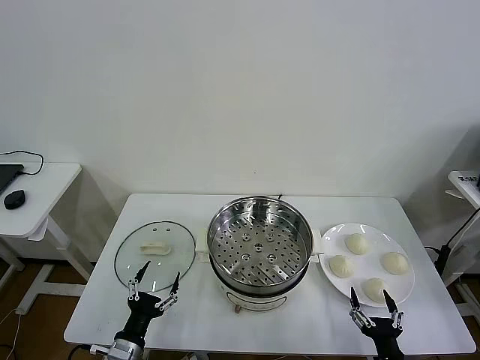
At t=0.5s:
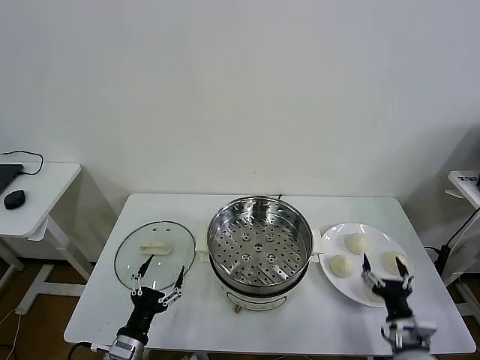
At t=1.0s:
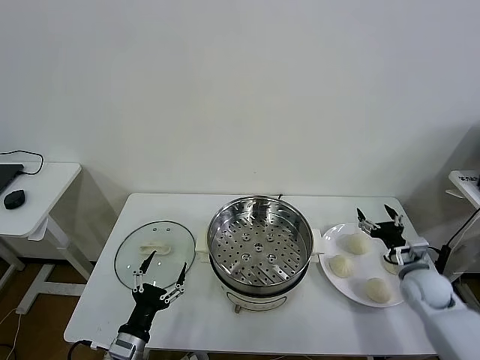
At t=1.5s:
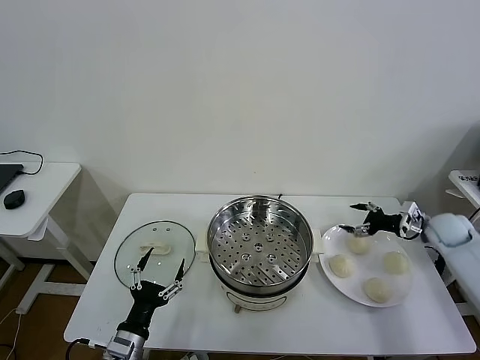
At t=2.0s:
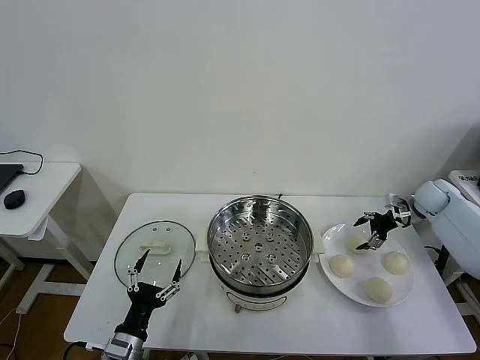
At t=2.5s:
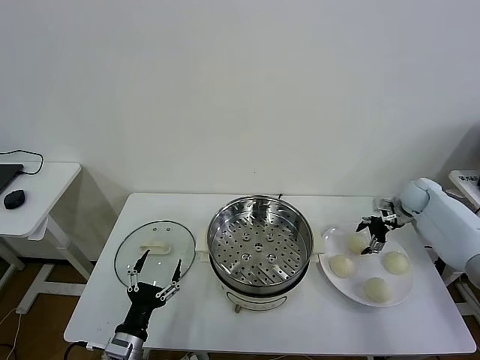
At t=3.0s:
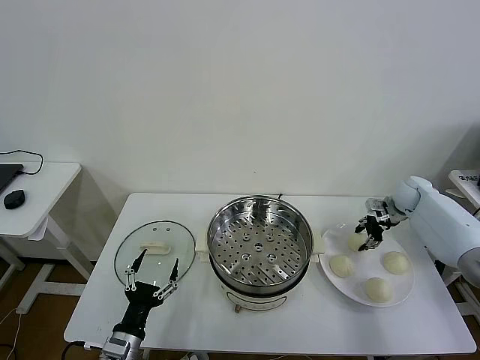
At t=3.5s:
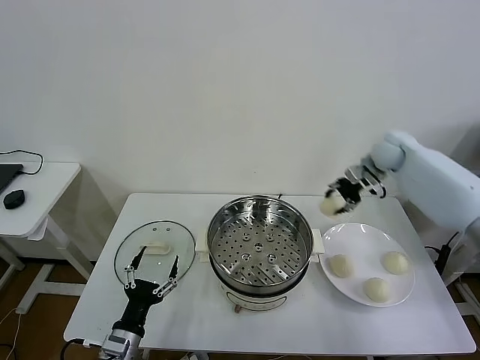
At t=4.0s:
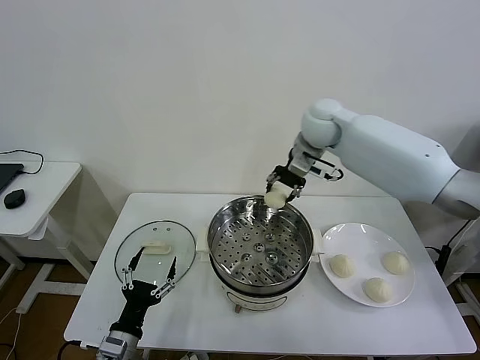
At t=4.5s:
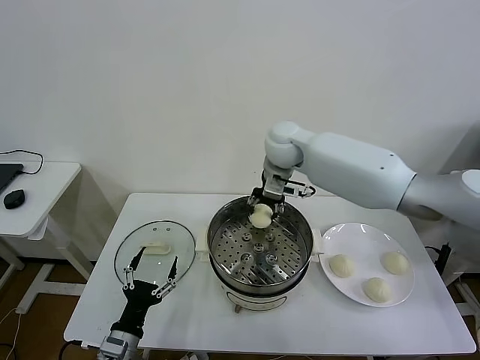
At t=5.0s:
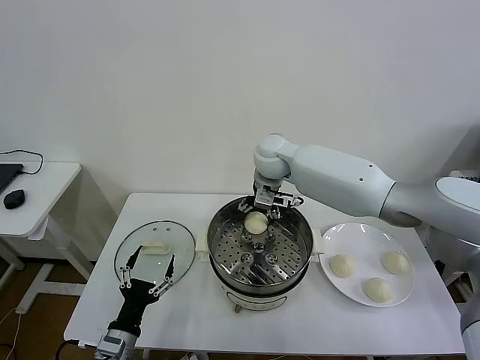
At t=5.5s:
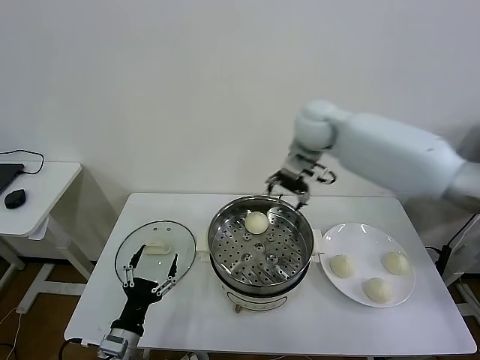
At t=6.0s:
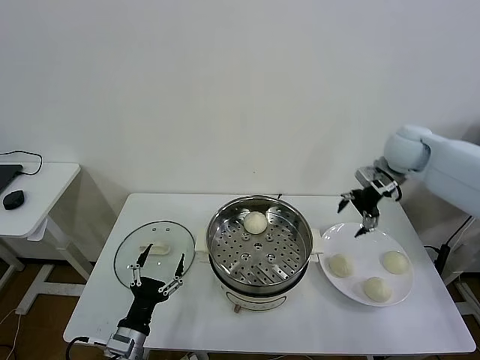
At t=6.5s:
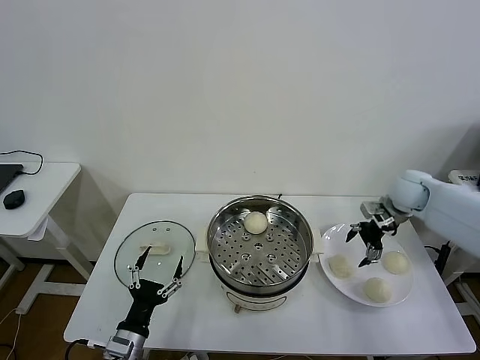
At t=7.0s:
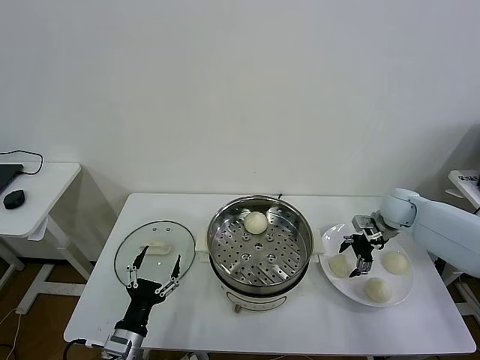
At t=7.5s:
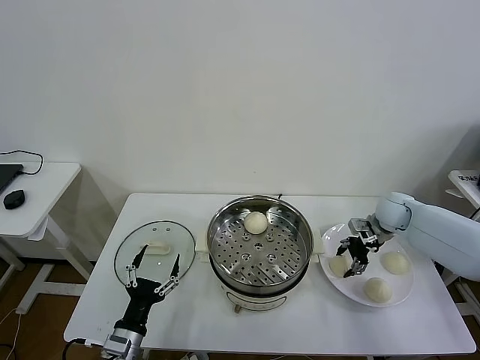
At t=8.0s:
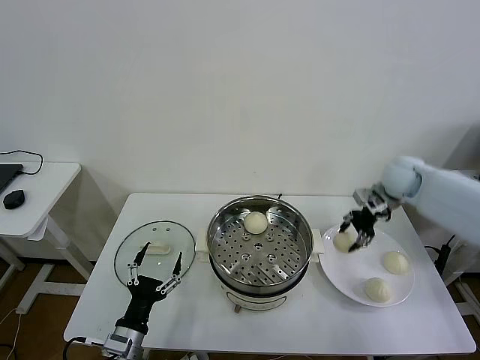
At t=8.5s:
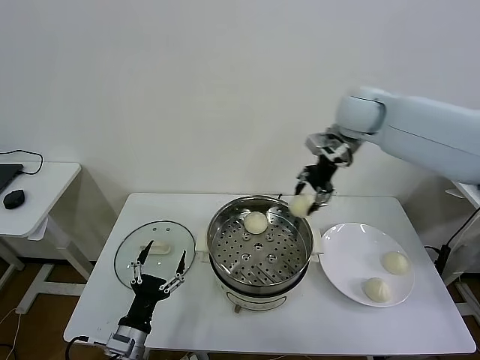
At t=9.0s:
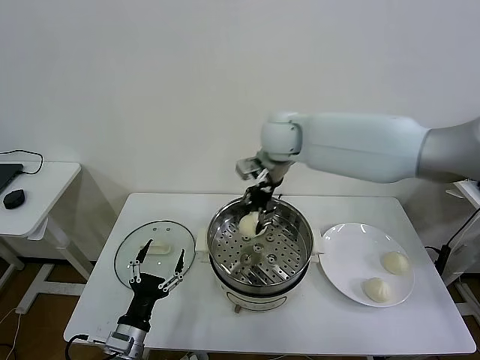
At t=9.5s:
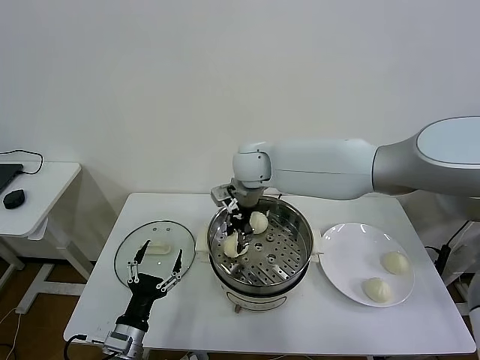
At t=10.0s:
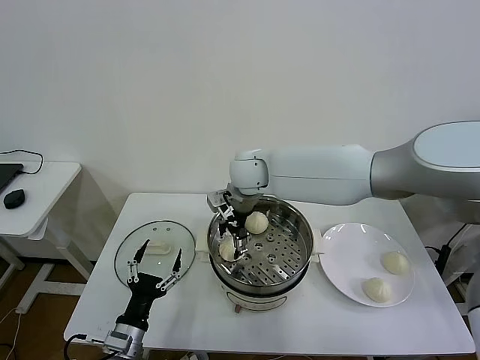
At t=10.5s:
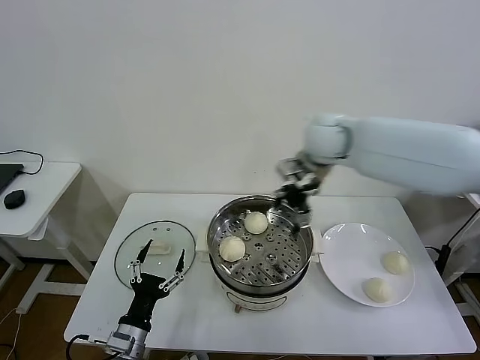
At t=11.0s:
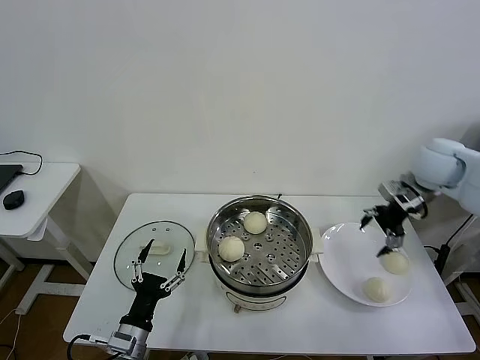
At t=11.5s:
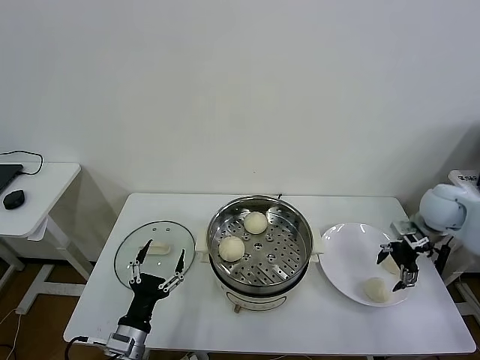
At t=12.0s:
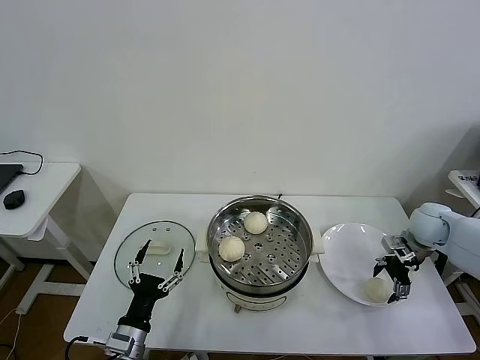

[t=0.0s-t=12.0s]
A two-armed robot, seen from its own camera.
Task of the whole recording: take steamed baozi put them in steamer then cover it.
Step, t=0.0s to t=2.5s: Grasp the baozi in the plate with right gripper.
Step, t=3.0s to t=5.0s: Place the baozi on the steamer with right gripper.
Step, t=5.5s to t=7.0s: Grasp the baozi in the plate with right gripper.
Step, t=8.0s to t=9.5s: Place the baozi on the steamer with right gripper.
t=2.0s to t=4.0s: The right gripper moves to the left and upward, approximately 40 cm, and closes up.
t=4.0s to t=6.0s: The right gripper travels to the right by about 25 cm, and opens its fingers.
t=6.0s to t=8.0s: The right gripper reaches about 15 cm downward, then returns, and closes.
t=8.0s to t=10.0s: The right gripper travels to the left by roughly 35 cm, and opens its fingers.
t=10.0s to t=12.0s: The right gripper goes about 40 cm to the right.

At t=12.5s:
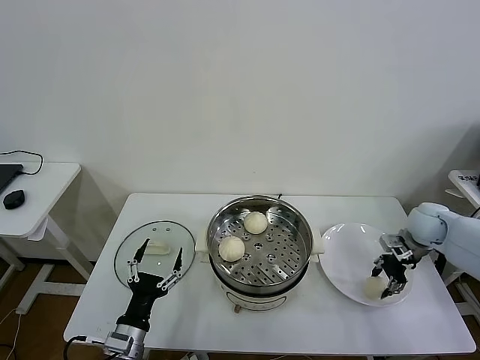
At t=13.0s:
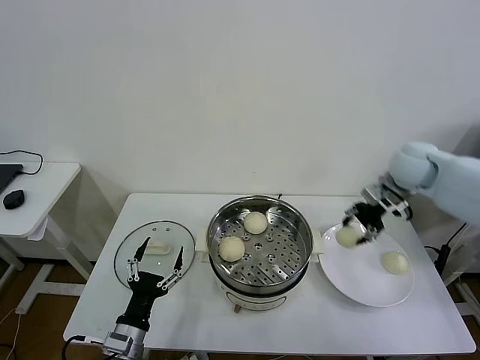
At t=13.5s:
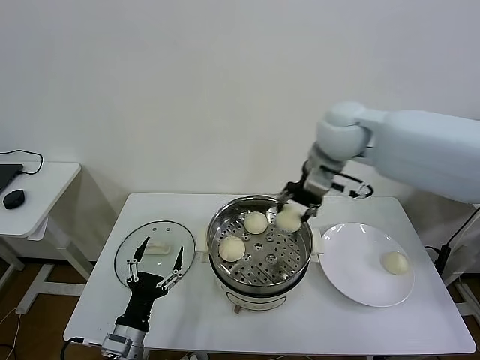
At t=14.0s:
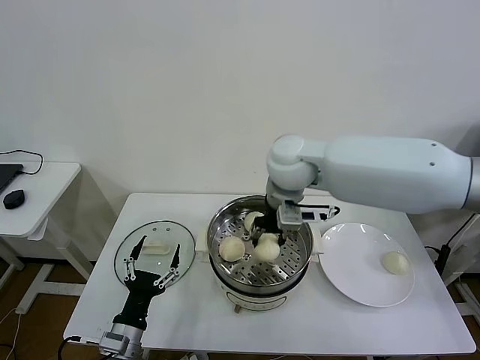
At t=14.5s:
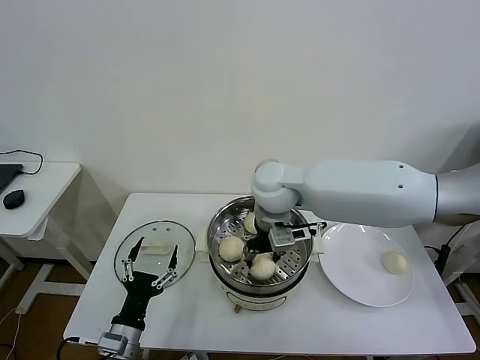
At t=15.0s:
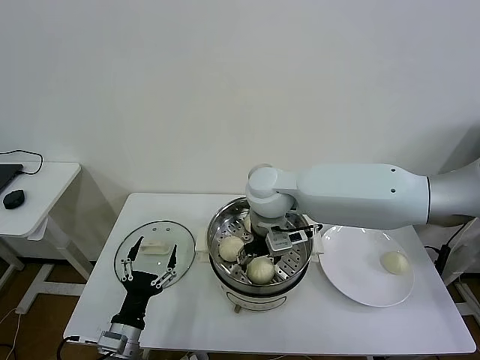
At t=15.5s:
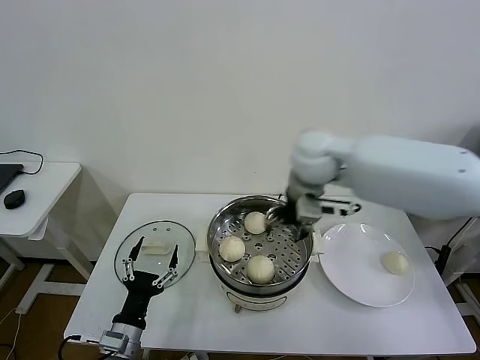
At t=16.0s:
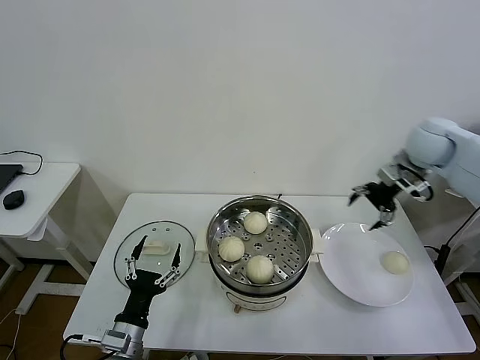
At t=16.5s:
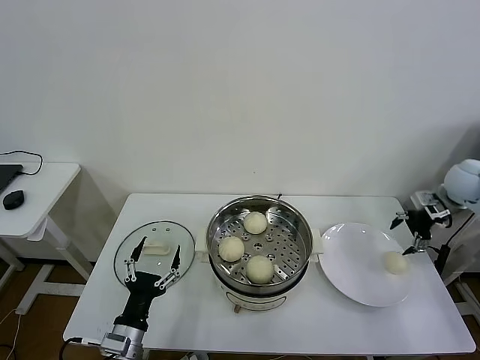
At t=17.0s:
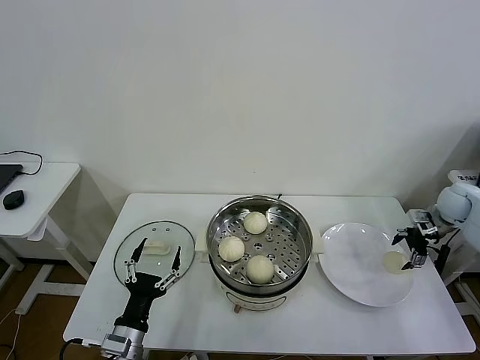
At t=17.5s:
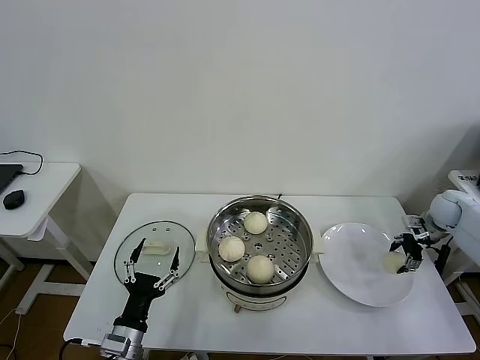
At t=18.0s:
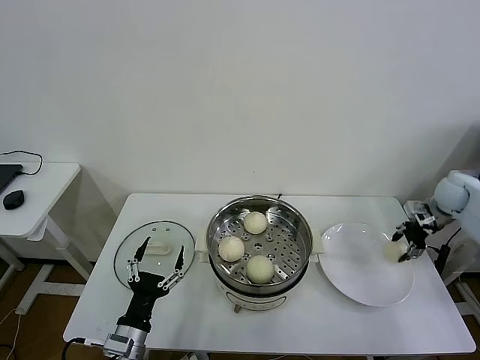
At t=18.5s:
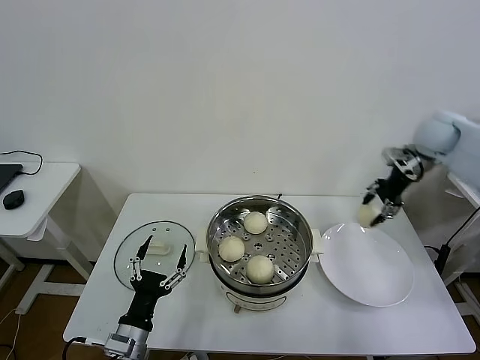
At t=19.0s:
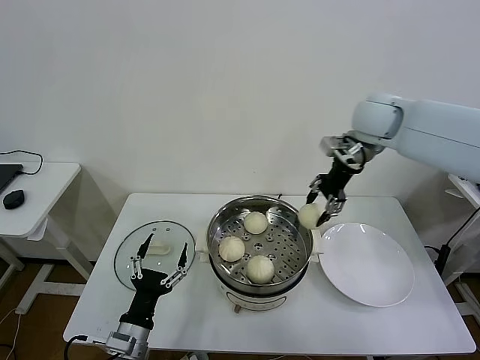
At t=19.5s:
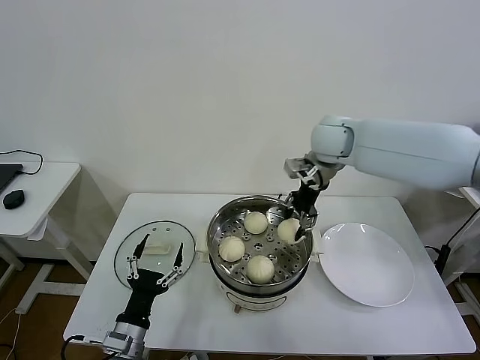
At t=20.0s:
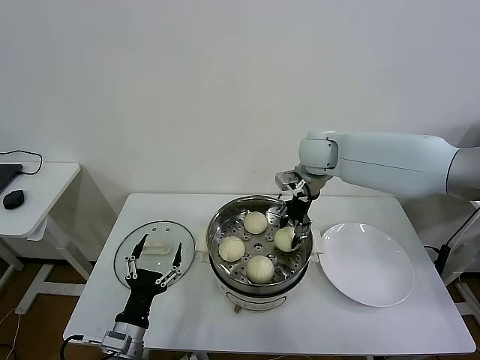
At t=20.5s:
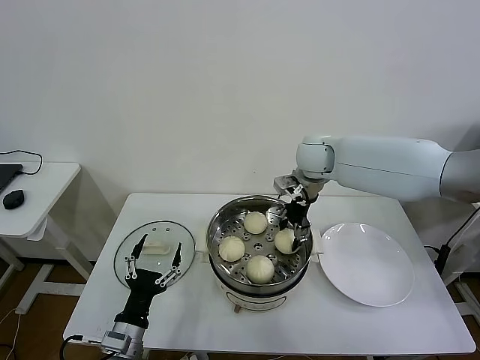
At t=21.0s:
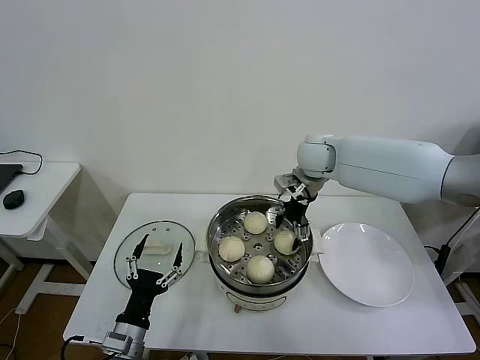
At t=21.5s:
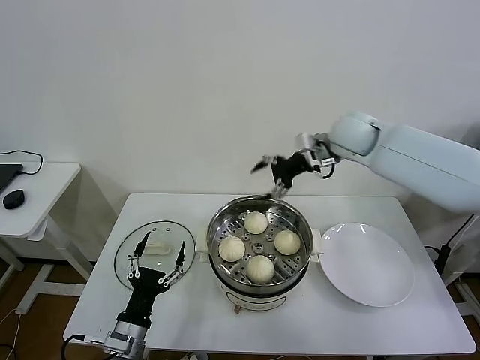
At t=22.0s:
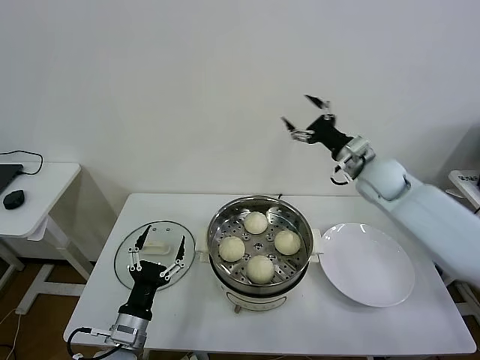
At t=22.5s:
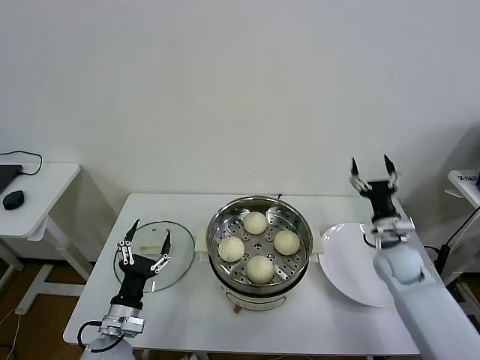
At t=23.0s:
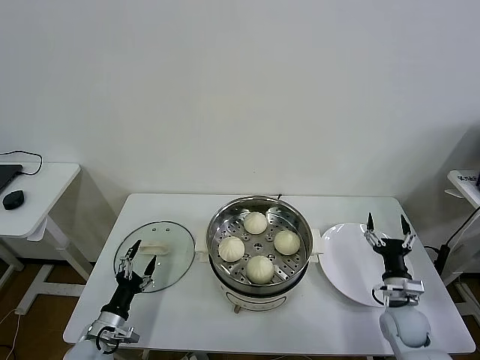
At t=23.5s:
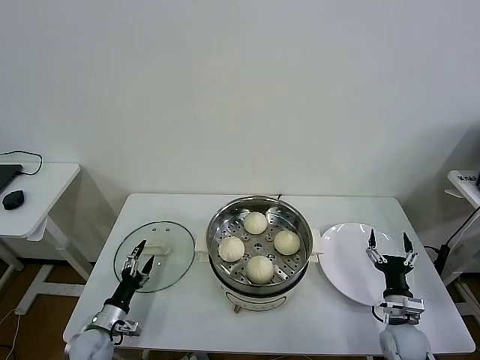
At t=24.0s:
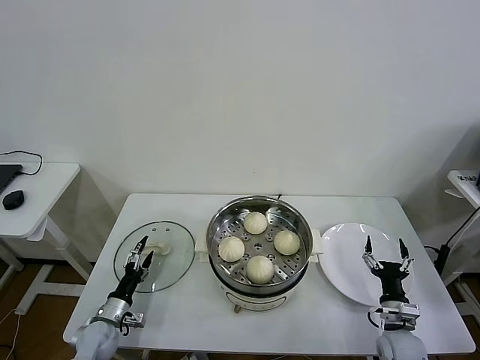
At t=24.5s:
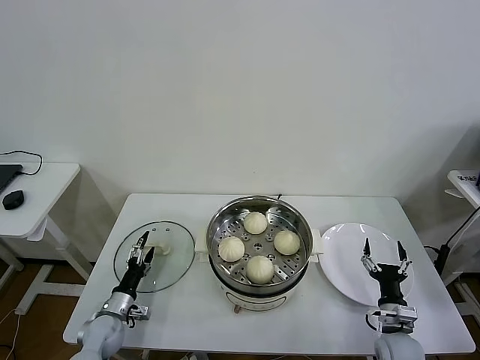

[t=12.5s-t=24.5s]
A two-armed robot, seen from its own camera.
Task of the whole recording: take steamed baozi put them in steamer then cover it.
Step, t=12.5s to t=14.5s: Place the baozi on the steamer with right gripper.
Step, t=15.0s to t=17.5s: Grasp the baozi in the plate with right gripper.
Step, t=18.0s to t=20.5s: Place the baozi on the steamer with right gripper.
t=12.5s to t=14.5s: The right gripper shifts roughly 40 cm to the left.
t=14.5s to t=16.5s: The right gripper shifts approximately 50 cm to the right, and opens.
t=16.5s to t=18.5s: The right gripper goes some 20 cm to the left, upward and forward, and closes.
t=18.5s to t=20.5s: The right gripper travels to the left by some 25 cm.
t=20.5s to t=22.5s: The right gripper shifts roughly 35 cm to the right, downward and backward, and opens its fingers.
t=22.5s to t=24.5s: The right gripper goes roughly 20 cm backward and downward; the left gripper moves downward, to the left and forward, approximately 15 cm.

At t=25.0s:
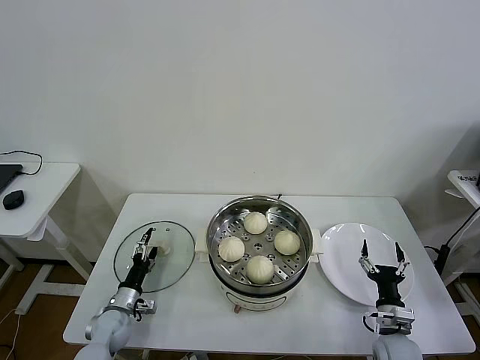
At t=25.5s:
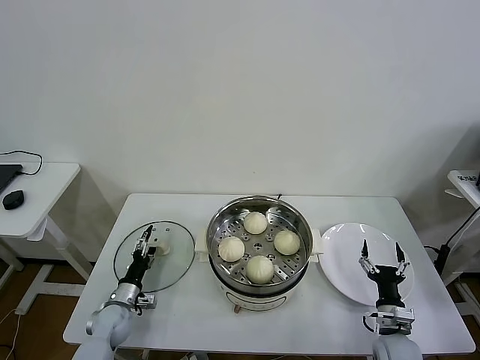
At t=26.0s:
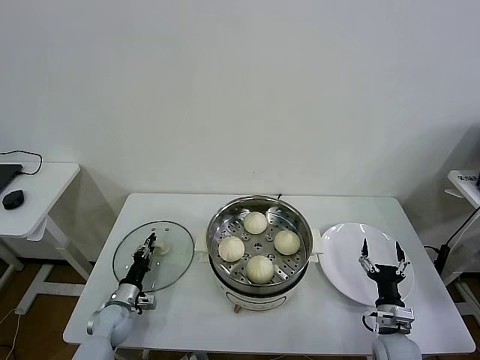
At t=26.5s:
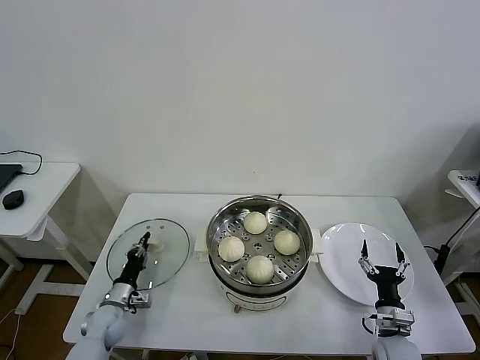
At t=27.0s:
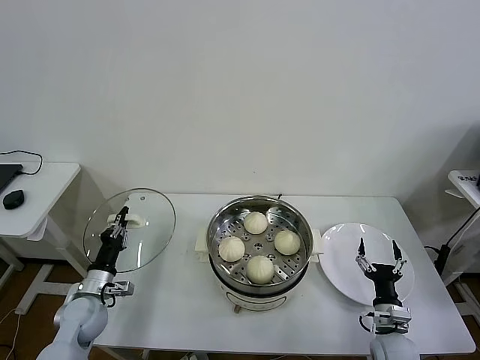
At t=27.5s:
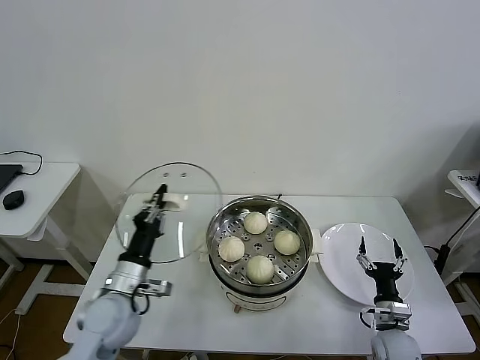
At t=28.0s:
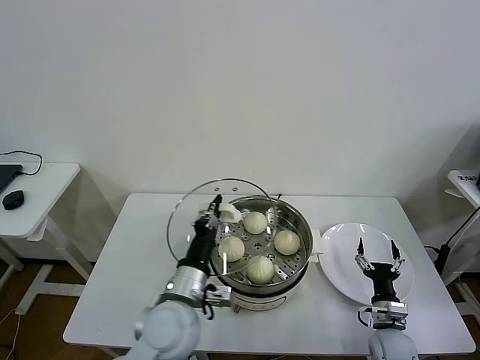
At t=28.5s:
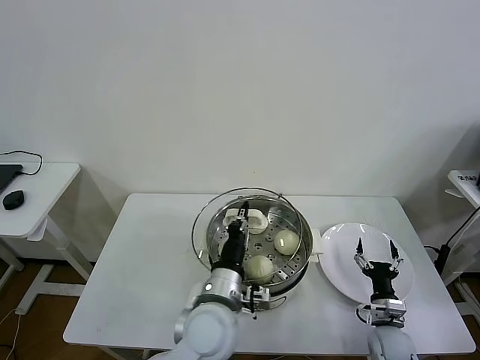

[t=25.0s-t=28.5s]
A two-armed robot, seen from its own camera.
Task of the whole recording: take steamed baozi put them in steamer then cover it.
t=25.0s to t=27.0s: The left gripper moves upward, roughly 10 cm, and closes its fingers.
t=27.0s to t=28.5s: The left gripper is displaced to the right and upward by some 35 cm.
